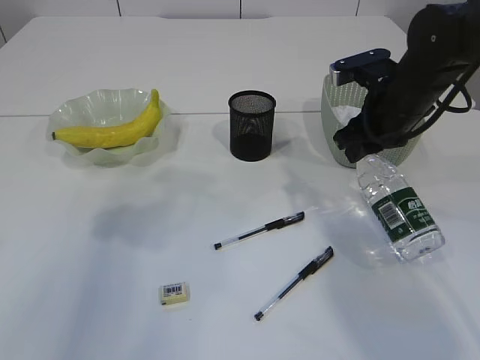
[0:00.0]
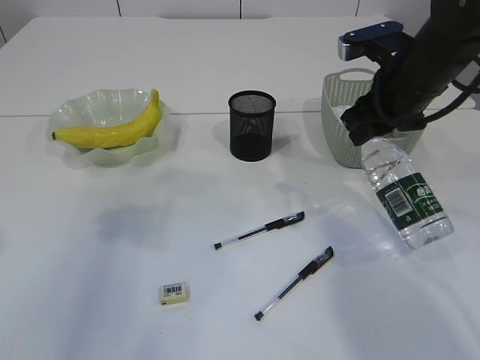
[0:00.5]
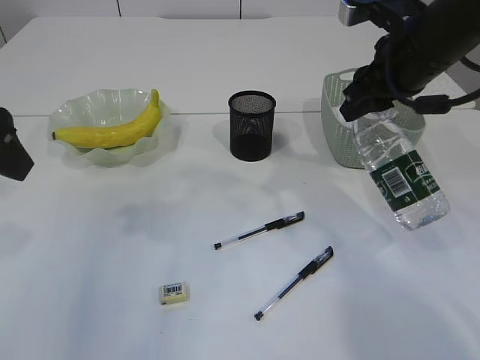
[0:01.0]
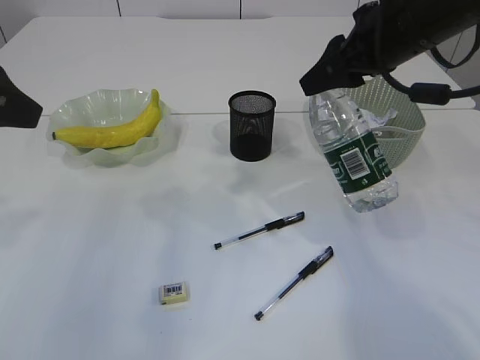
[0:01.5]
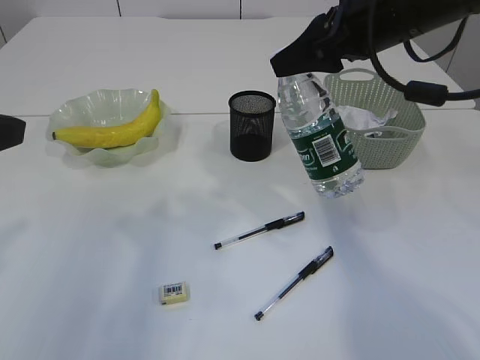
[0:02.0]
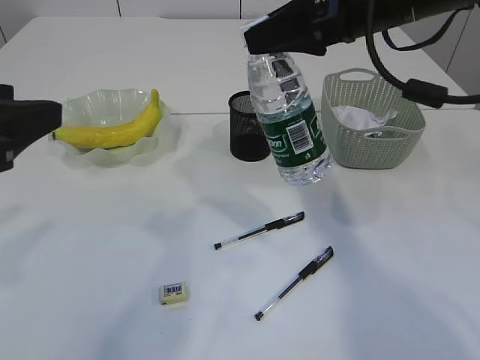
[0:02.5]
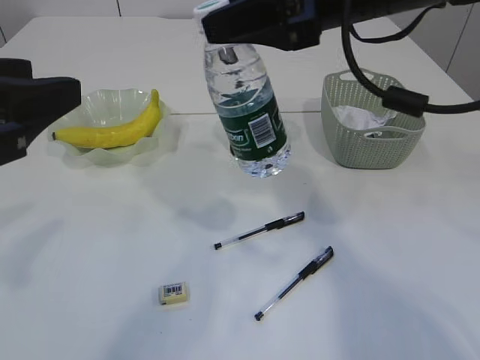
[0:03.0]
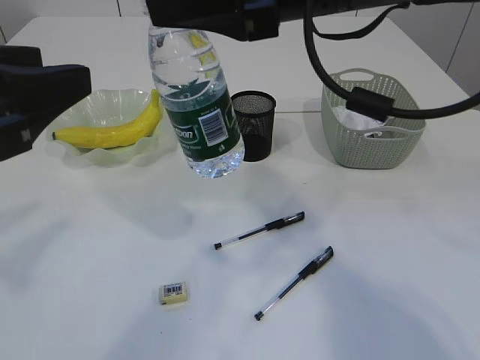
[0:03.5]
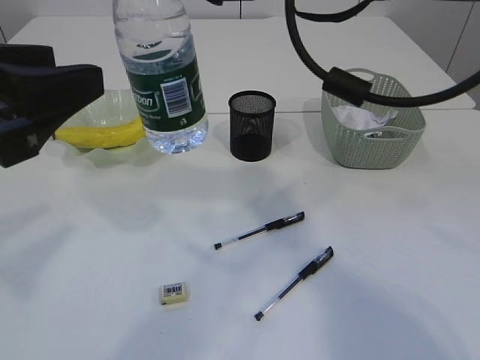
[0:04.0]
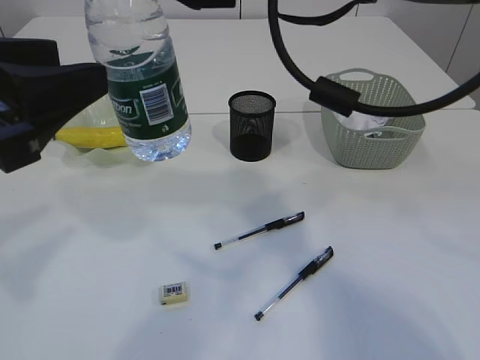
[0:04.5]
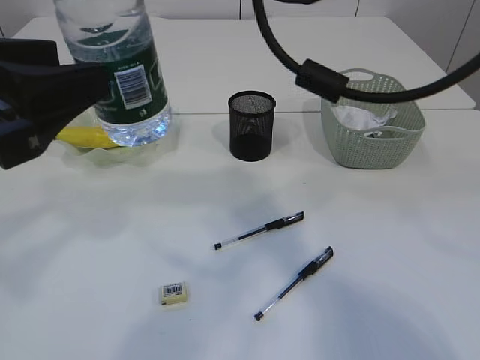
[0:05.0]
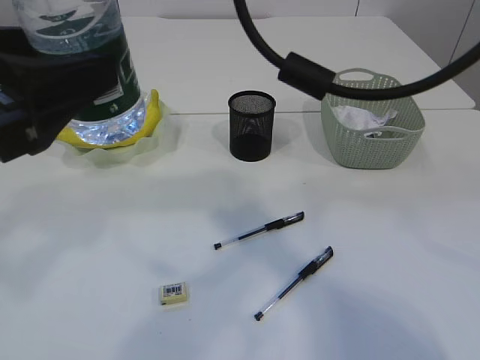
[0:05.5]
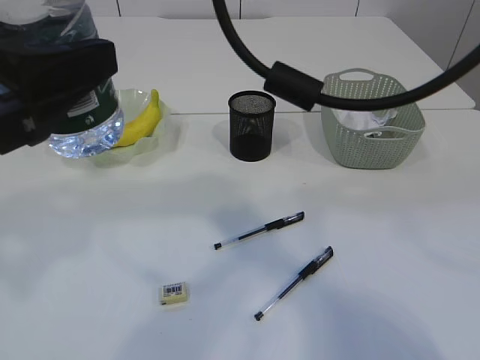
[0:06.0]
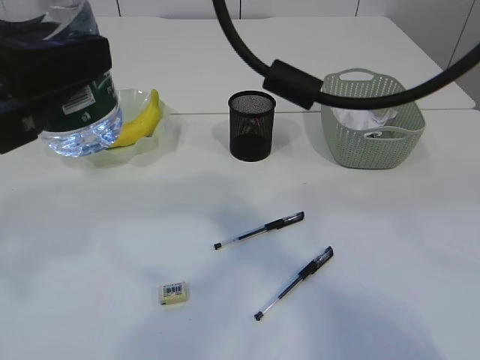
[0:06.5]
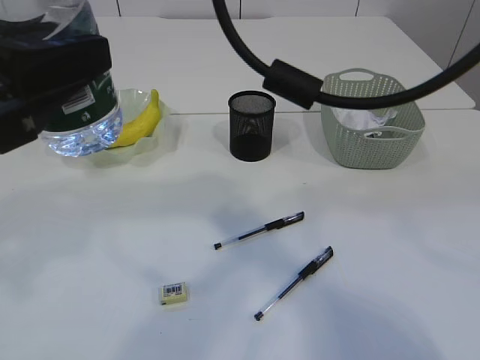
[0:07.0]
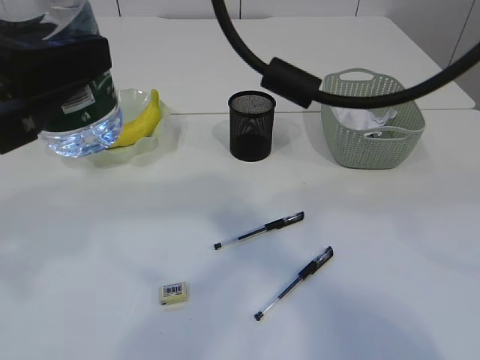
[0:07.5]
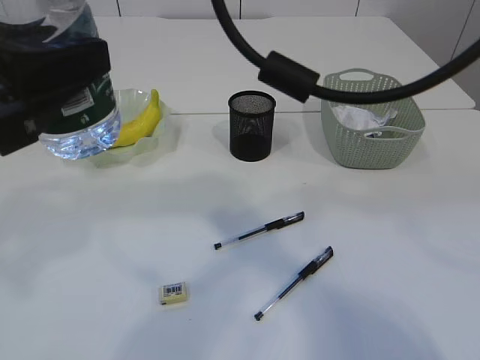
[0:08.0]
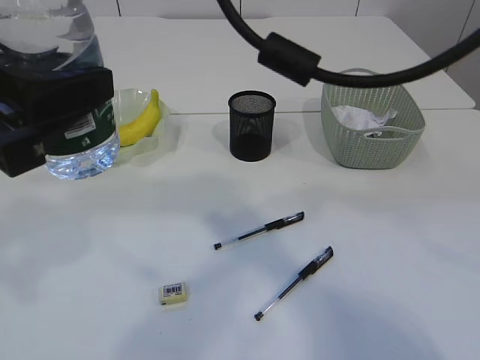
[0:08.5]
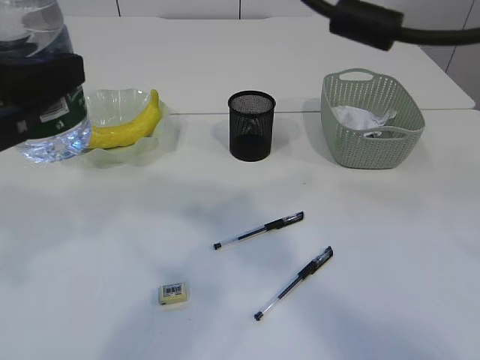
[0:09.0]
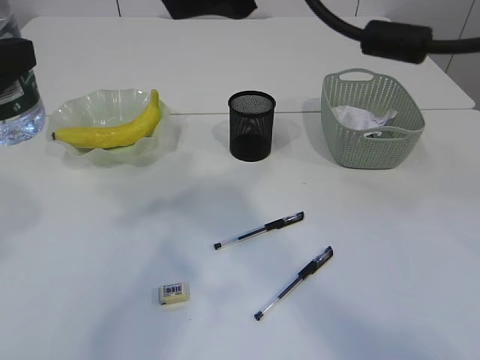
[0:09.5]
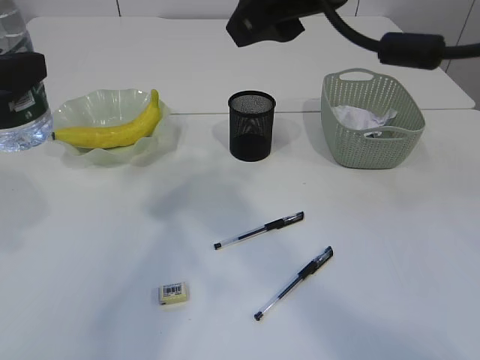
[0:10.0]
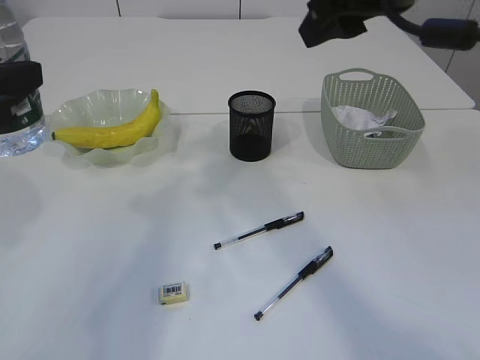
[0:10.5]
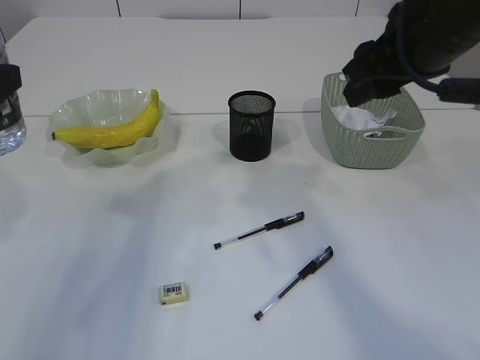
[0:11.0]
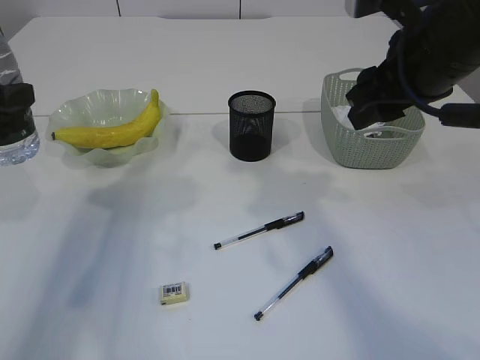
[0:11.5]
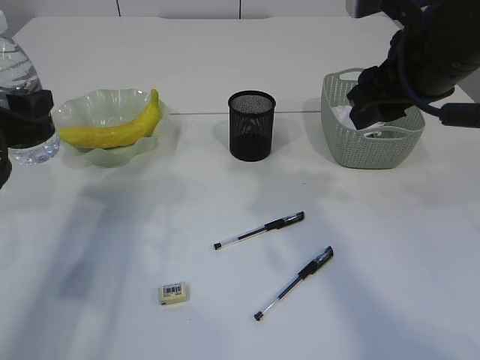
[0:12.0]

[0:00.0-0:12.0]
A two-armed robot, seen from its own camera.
Step, 1.0 to 8.5 s: transfer the bottle to the left arm.
0.0 to 2.0 s: The right gripper heads upward, covering about 10 cm.
2.0 to 4.0 s: The right gripper shifts about 10 cm to the left and upward. The left gripper moves to the right, approximately 5 cm.
4.0 to 6.0 s: The right gripper travels to the left by about 5 cm.
6.0 to 8.0 s: Both grippers stay about where they are.
8.0 to 10.0 s: The right gripper travels to the right by approximately 5 cm. The left gripper moves to the left, roughly 5 cm.
10.0 to 12.0 s: The right gripper is displaced to the right and downward by roughly 10 cm; the left gripper travels downward and forward by about 15 cm.

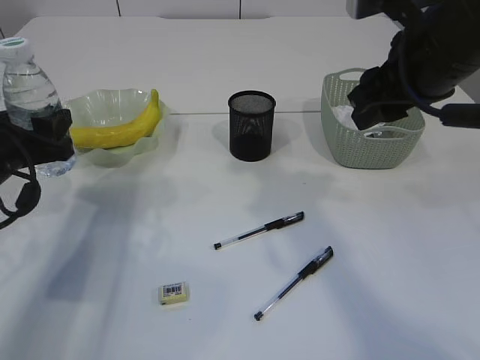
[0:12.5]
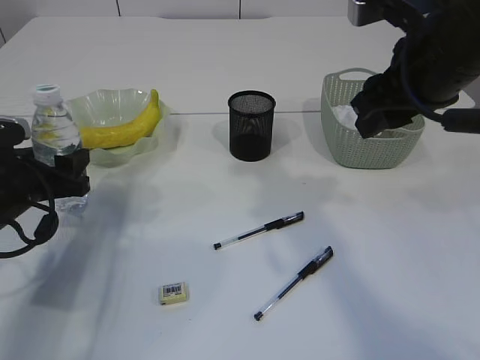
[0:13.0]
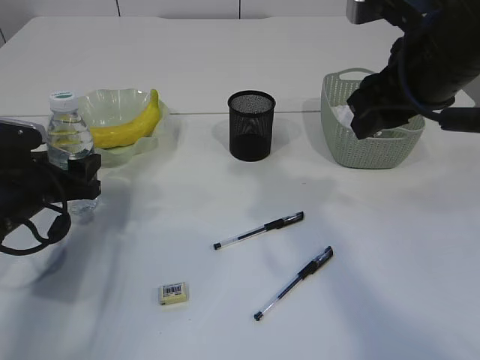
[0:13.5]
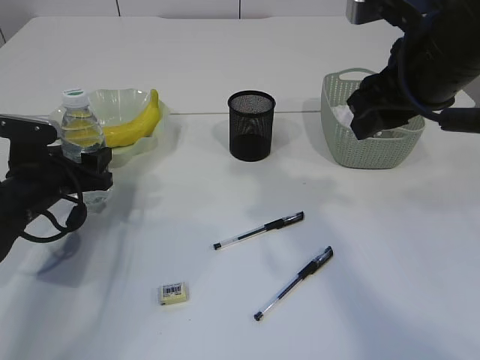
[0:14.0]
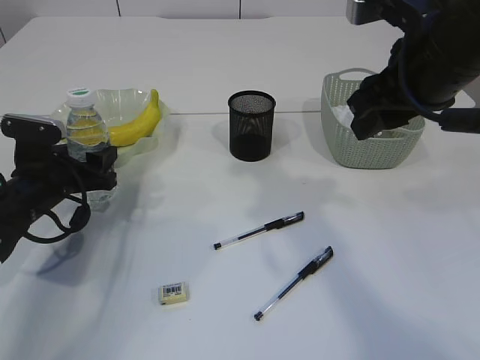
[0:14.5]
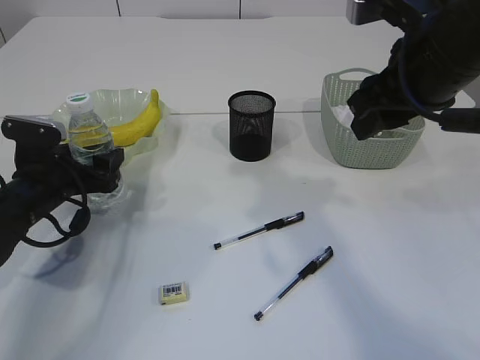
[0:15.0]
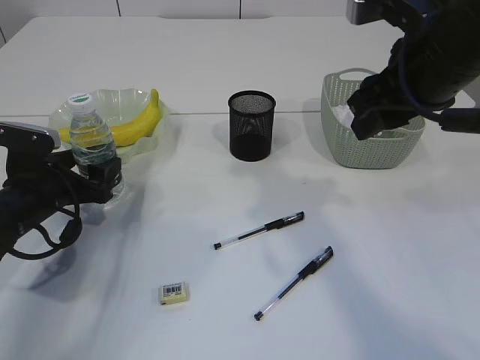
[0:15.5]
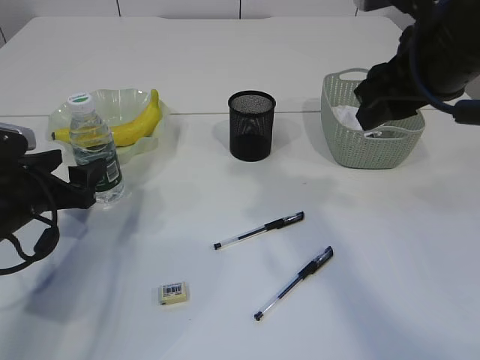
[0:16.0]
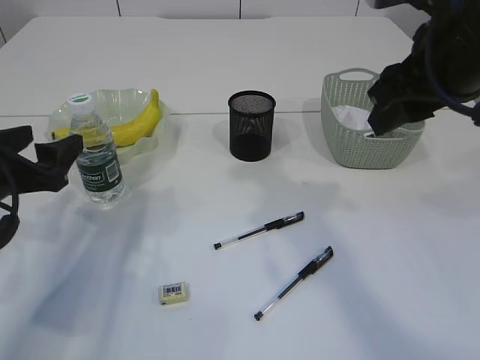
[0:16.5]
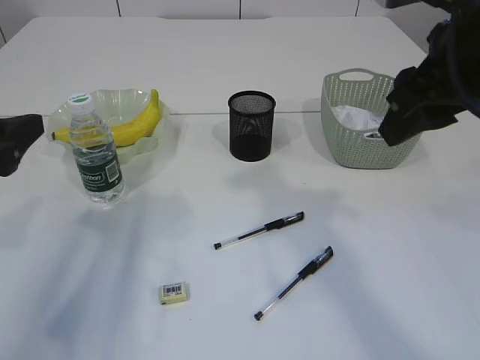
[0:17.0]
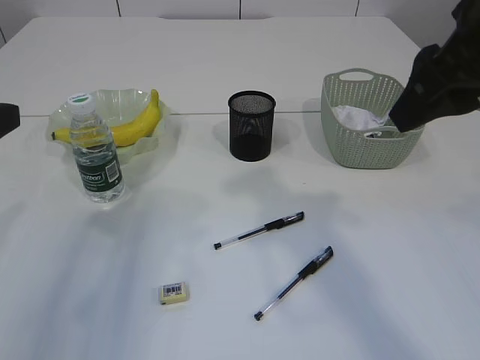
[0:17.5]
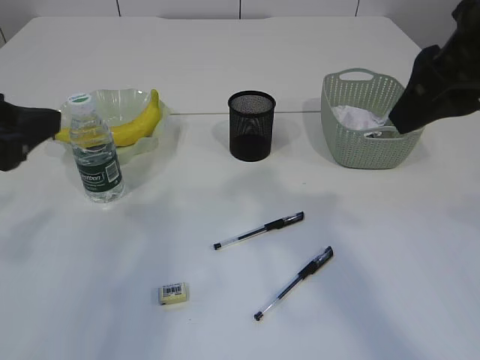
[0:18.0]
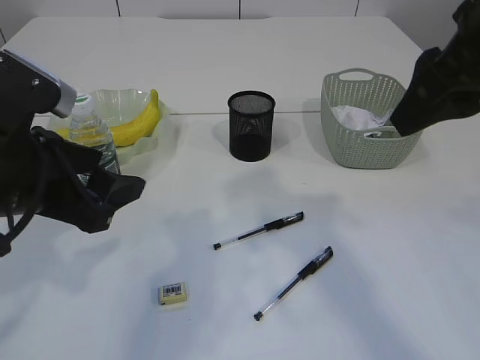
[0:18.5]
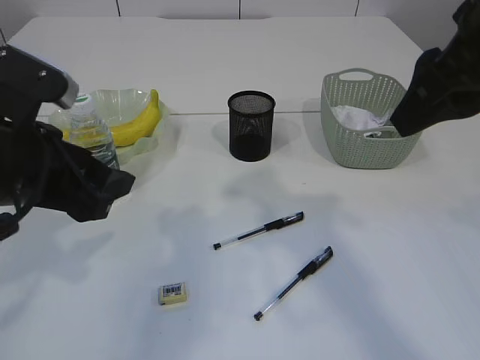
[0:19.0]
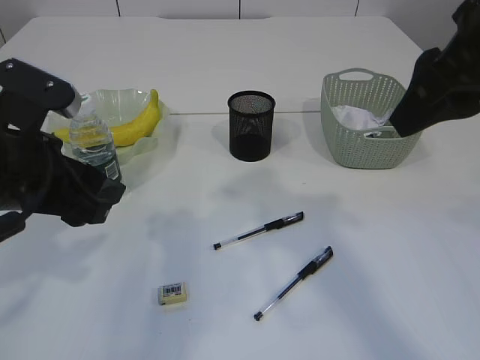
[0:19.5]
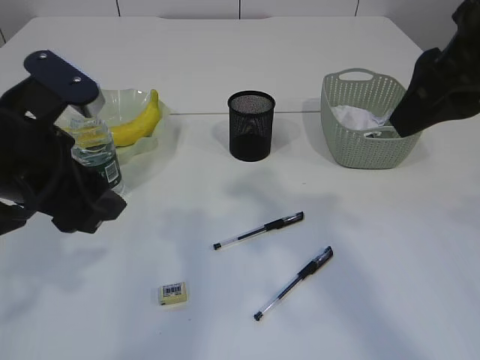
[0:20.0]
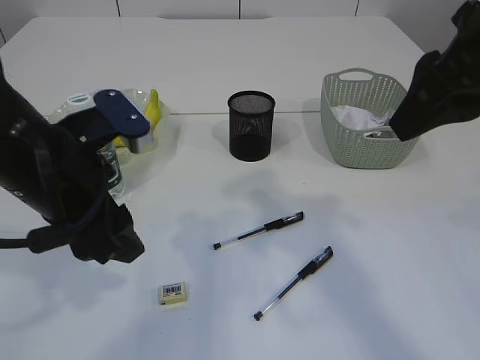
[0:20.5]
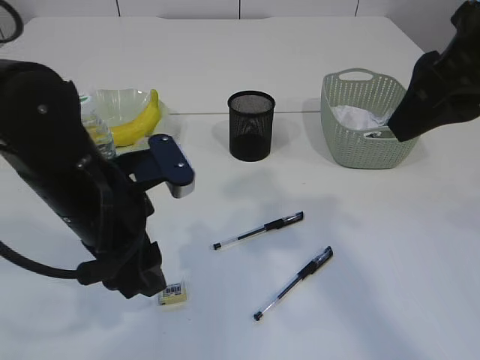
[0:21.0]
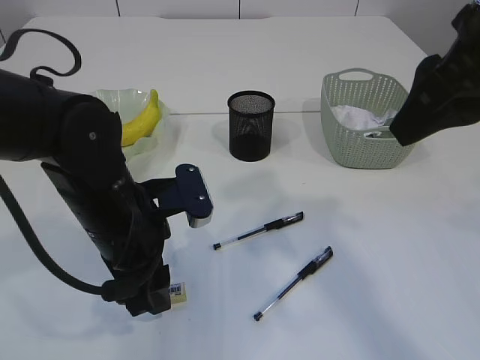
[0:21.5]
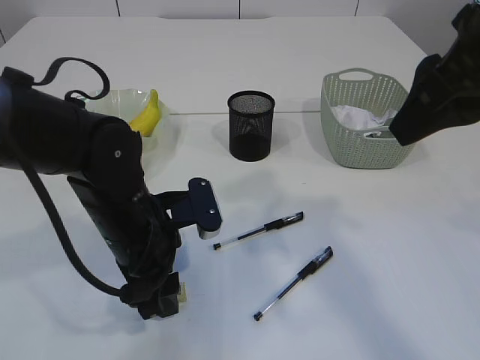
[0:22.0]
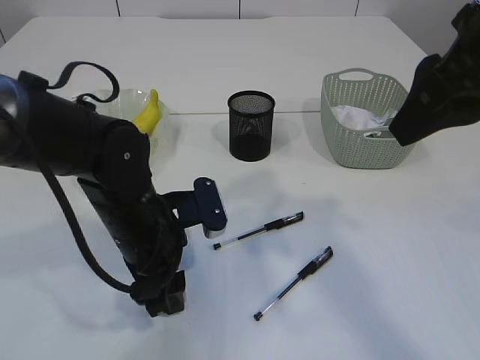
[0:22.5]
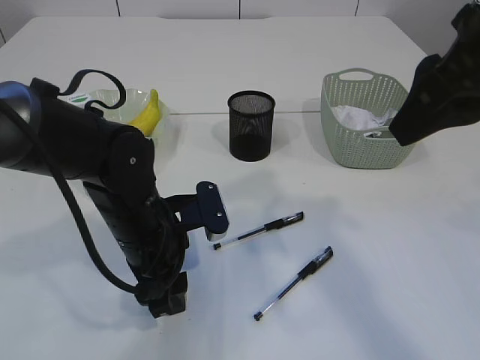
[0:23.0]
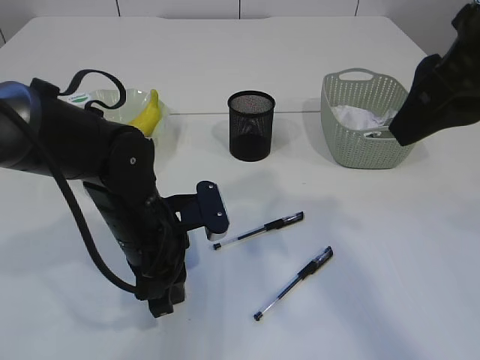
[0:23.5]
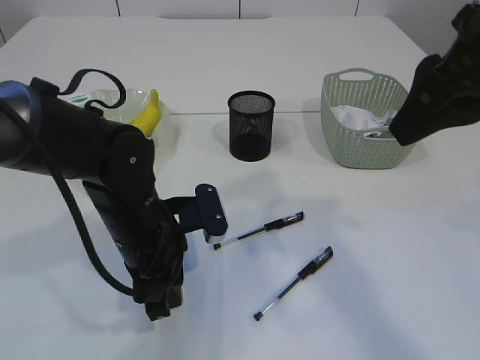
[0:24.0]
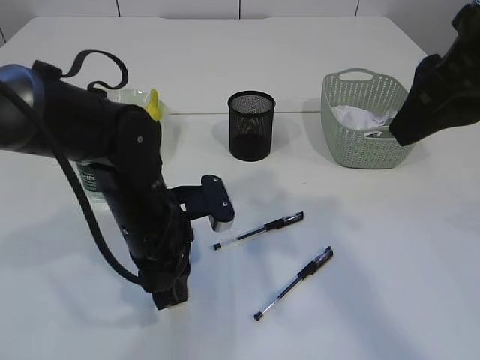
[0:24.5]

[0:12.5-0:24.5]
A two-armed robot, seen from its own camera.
Step, 12.5 to 16.0 s: Place the bottle.
12.5 to 14.5 s: The left gripper is displaced downward by roughly 10 cm.
14.5 to 16.5 s: The left gripper travels backward and upward by approximately 10 cm.
16.5 to 18.5 s: The left gripper heads to the right, upward and backward, covering approximately 10 cm; the right gripper changes place by roughly 5 cm.
20.5 to 22.5 s: The left gripper is displaced downward and to the right by about 10 cm.
22.5 to 24.5 s: The left gripper closes.

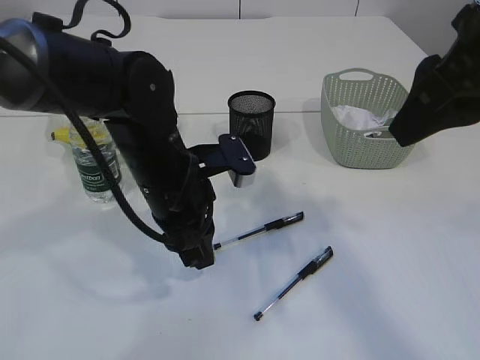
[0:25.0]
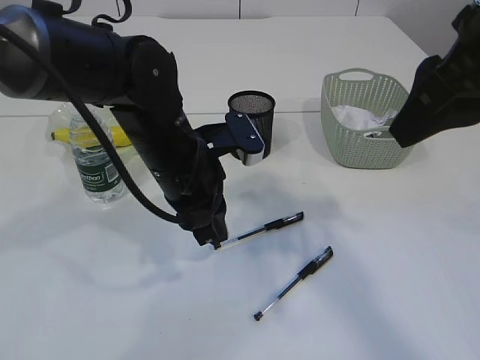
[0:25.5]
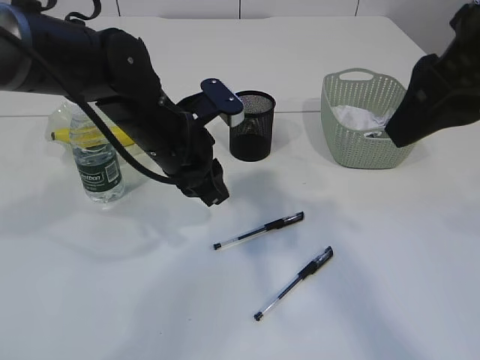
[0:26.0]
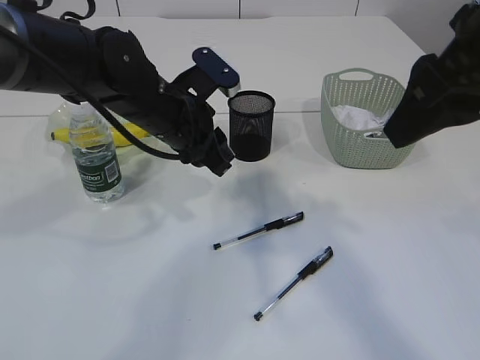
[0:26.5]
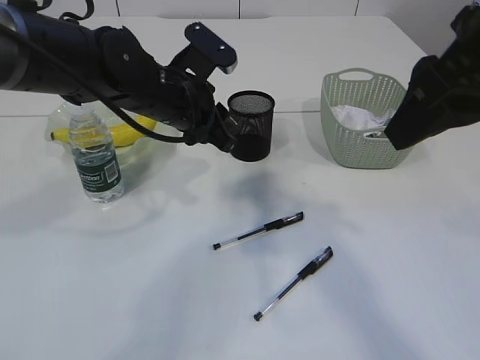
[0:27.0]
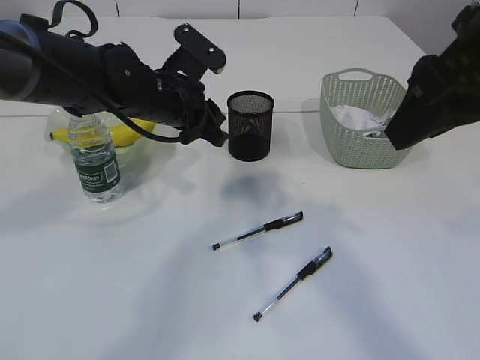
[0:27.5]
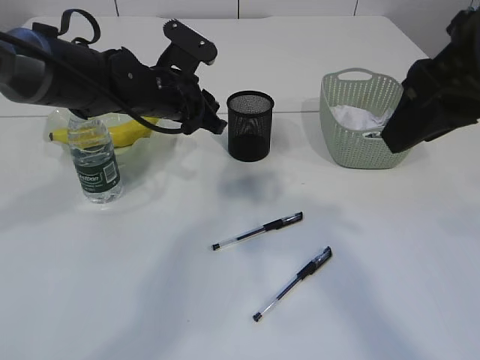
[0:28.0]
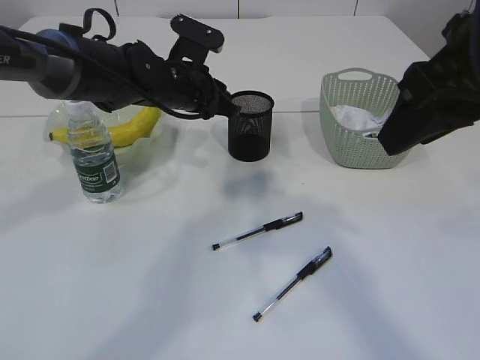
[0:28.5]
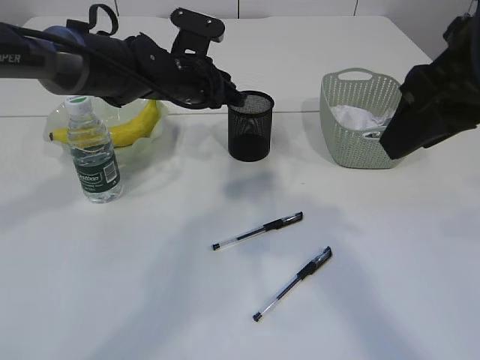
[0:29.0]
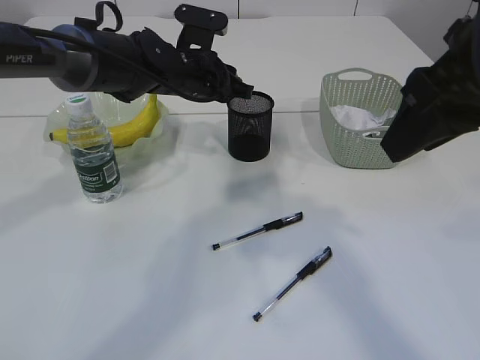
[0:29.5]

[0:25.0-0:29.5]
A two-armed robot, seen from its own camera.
25.0 to 27.0 s: The left gripper heads forward, covering about 10 cm.
27.0 to 29.5 s: The left gripper goes about 10 cm forward.
